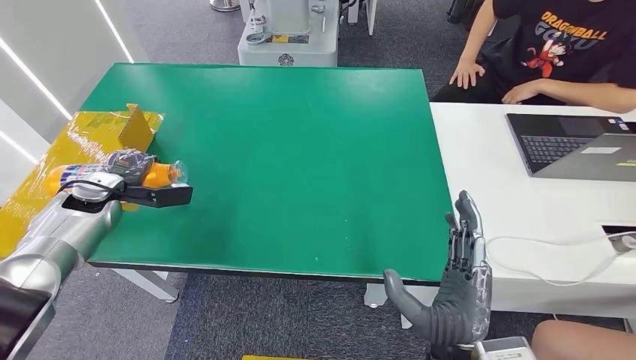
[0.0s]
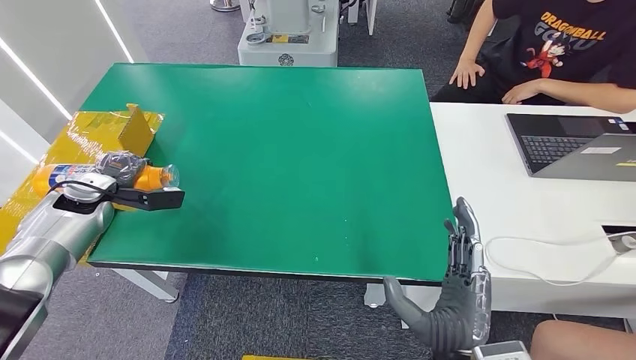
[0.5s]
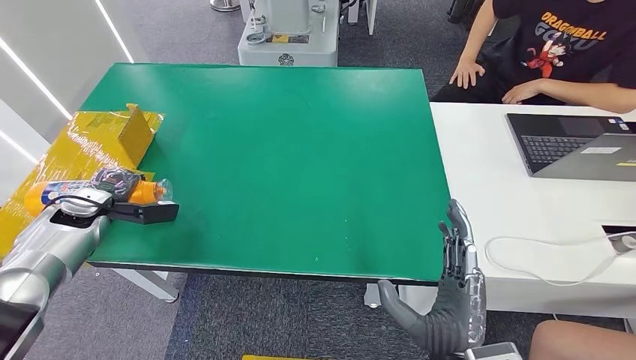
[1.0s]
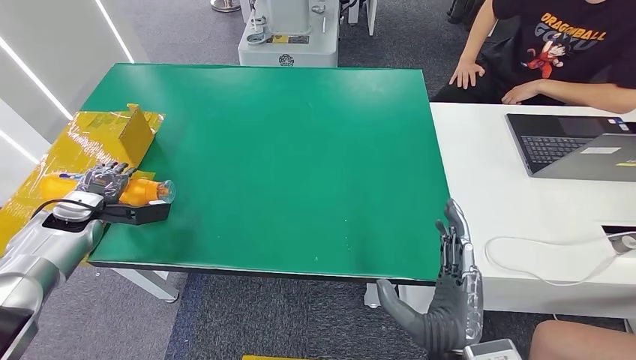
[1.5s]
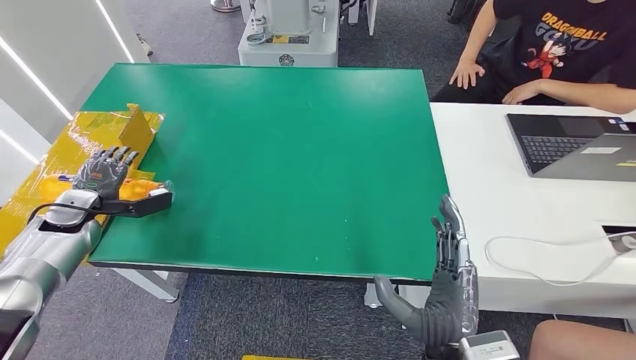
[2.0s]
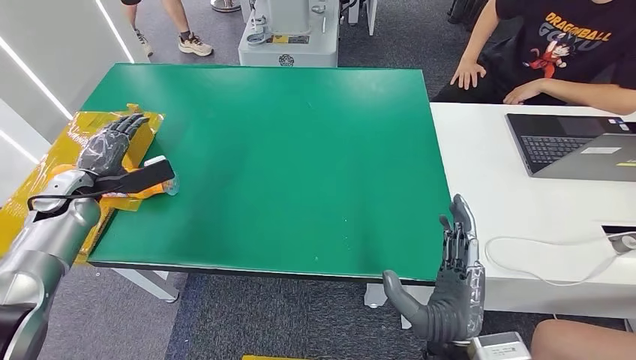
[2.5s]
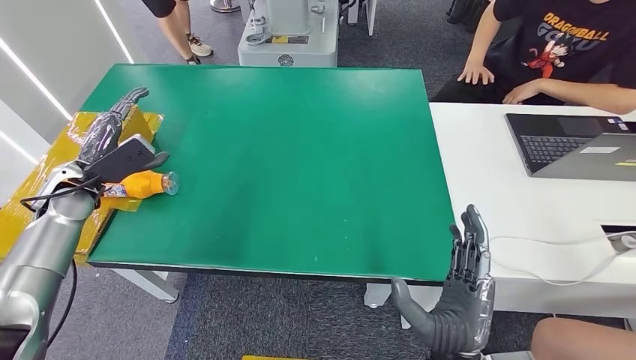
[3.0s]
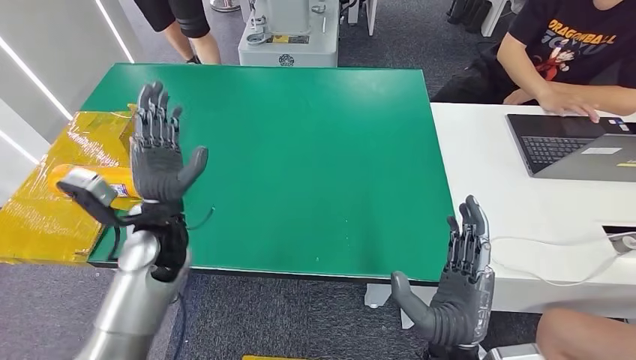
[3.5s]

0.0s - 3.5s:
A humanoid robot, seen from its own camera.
Step, 0.0s - 3.5s: Turn the bottle to the front side.
0.0s - 2.0s: The left hand shifts by roughly 5 cm.
2.0s - 3.5s: The left hand heads to the right, covering some 25 cm.
